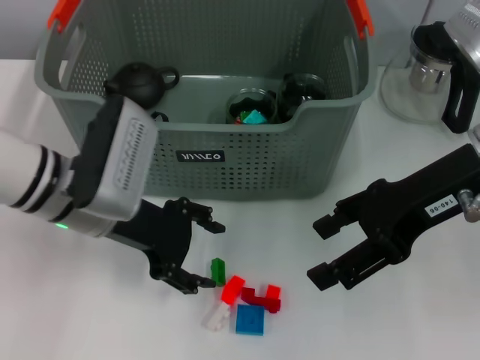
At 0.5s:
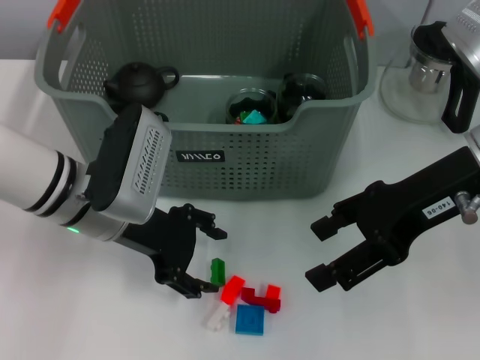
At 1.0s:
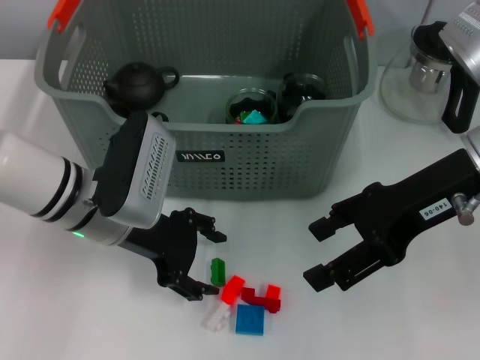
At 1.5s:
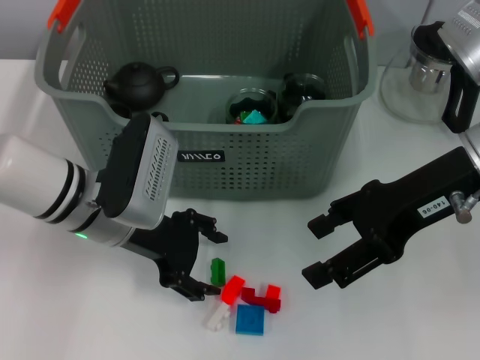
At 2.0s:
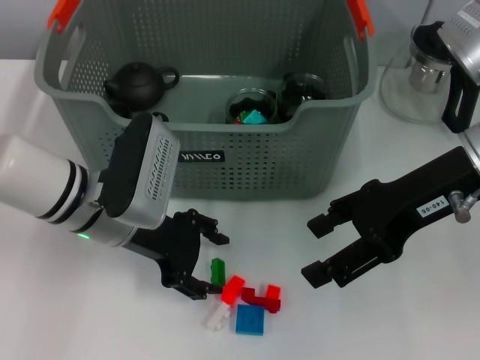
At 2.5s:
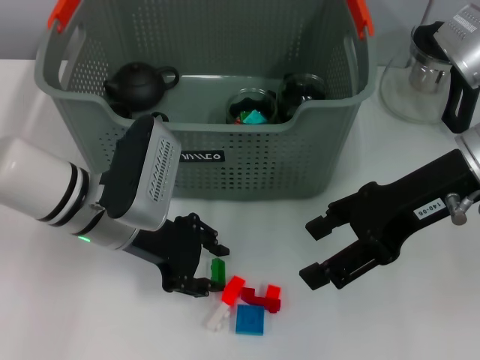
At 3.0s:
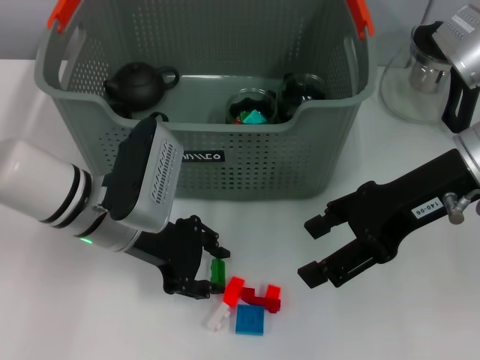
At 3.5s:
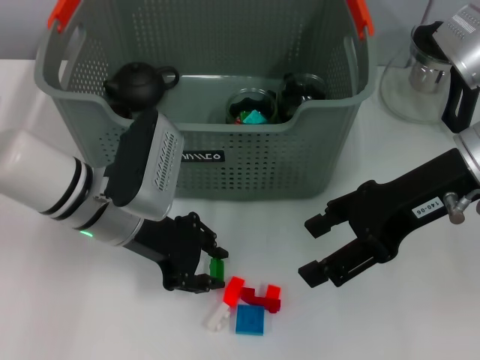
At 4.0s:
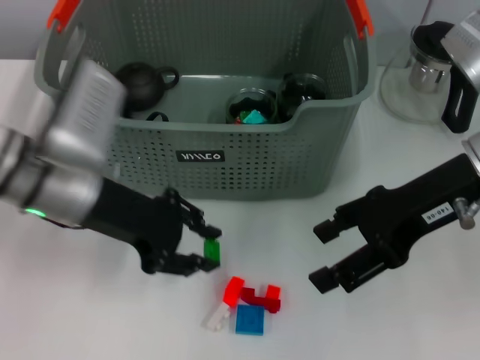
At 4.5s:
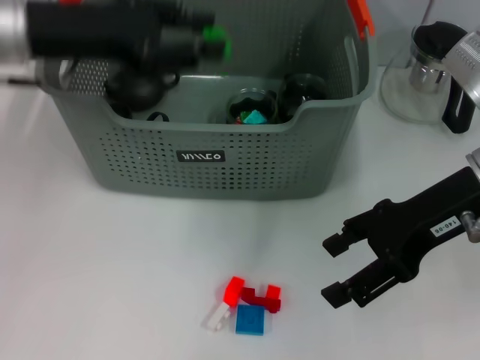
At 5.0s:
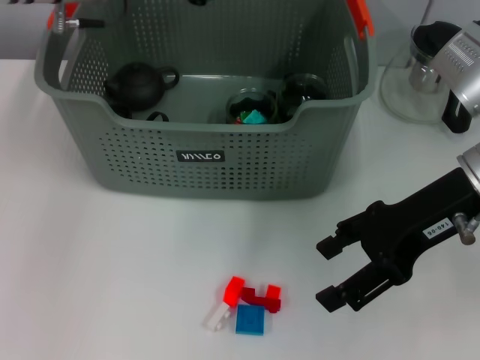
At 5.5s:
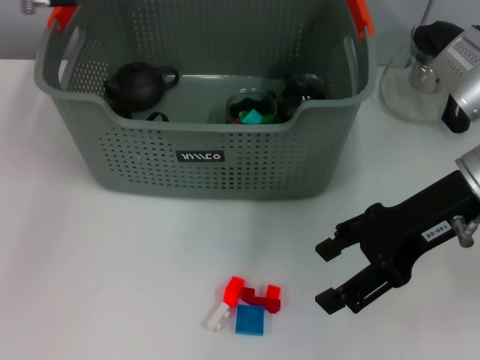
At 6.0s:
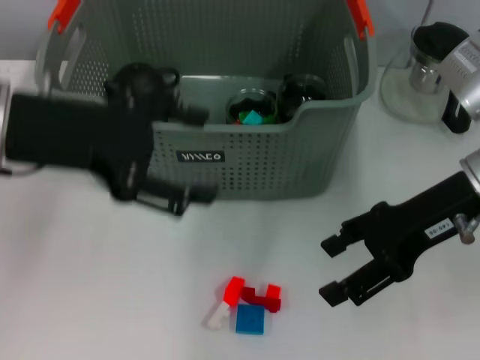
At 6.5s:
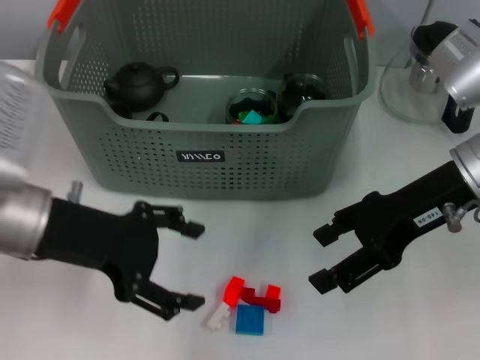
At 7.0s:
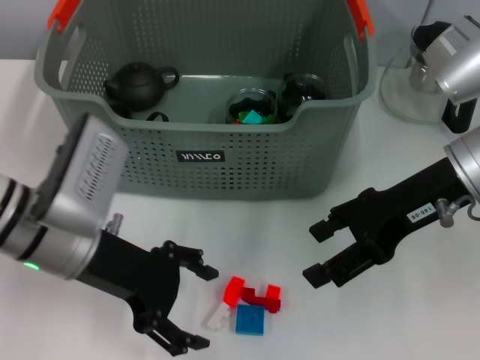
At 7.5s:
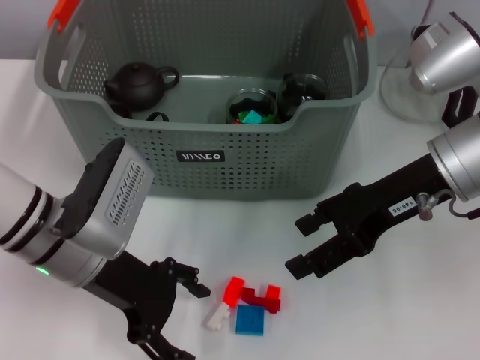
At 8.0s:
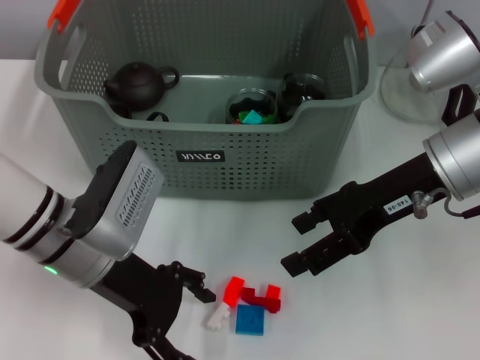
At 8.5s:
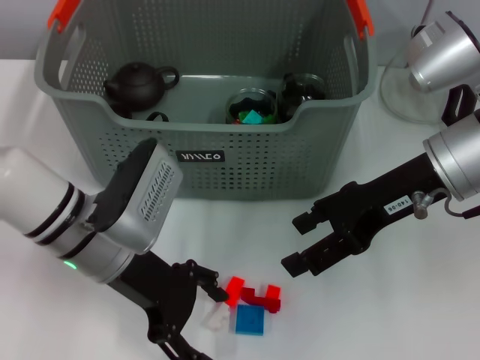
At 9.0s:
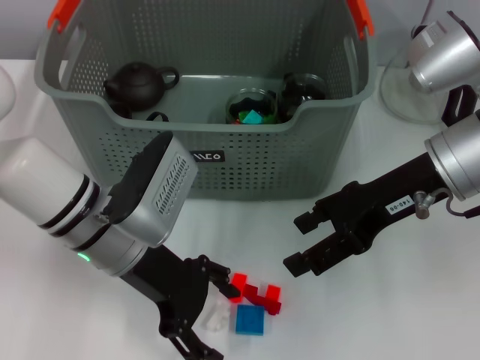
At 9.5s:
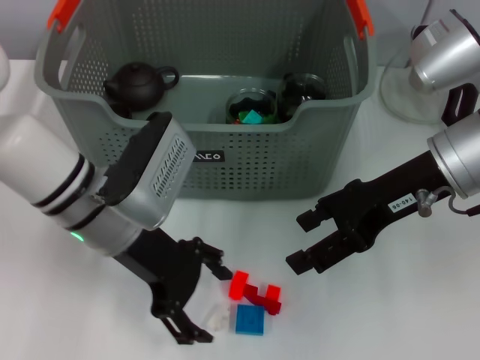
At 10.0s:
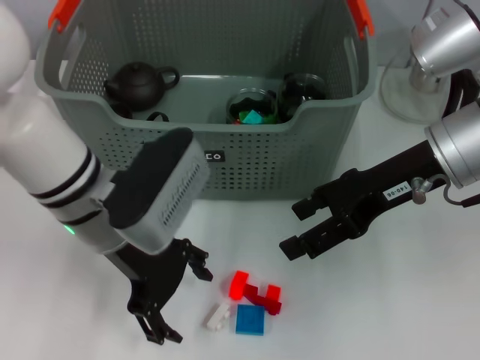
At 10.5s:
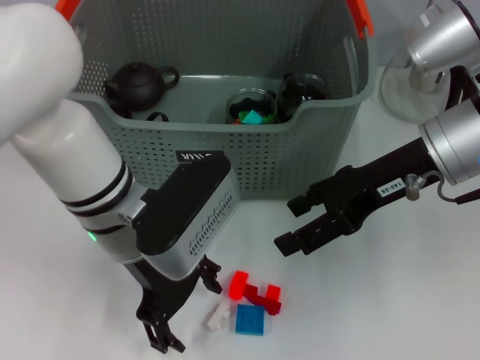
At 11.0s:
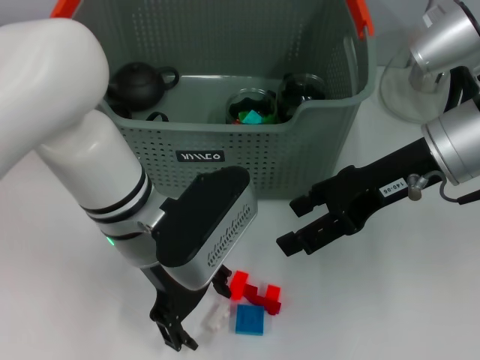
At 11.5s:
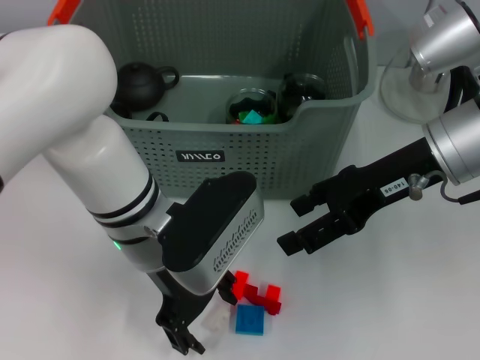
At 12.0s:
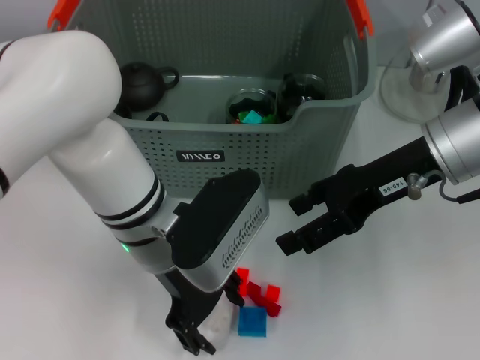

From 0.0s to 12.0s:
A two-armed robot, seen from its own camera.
Task of the whole recording: pick up the teacup on the table and place it into the storage bin, pick up the block on the table and place it into the storage bin.
Step, from 0.0s to 3.0s: Grasp the green block with left gripper.
Step, from 3.5s to 5.0s: Place the green block in the storage box with left gripper.
From 0.0s to 2.0s: There are only small adjustments of the grippers.
From 2.0s to 4.0s: The left gripper moves some 5 cm, and closes.
From 4.0s to 6.0s: The left gripper moves upward, about 10 cm, goes forward and returns, roughly 10 cm each way, and opens up.
From 6.0s to 8.0s: The left gripper heads downward, covering about 15 cm.
From 8.0s to 10.0s: The left gripper ends up approximately 5 cm from where it was.
From 10.0s to 12.0s: The left gripper changes place by approximately 5 cm.

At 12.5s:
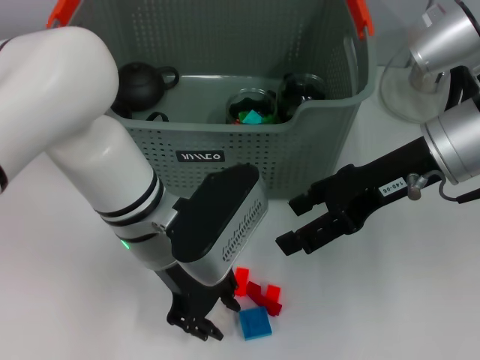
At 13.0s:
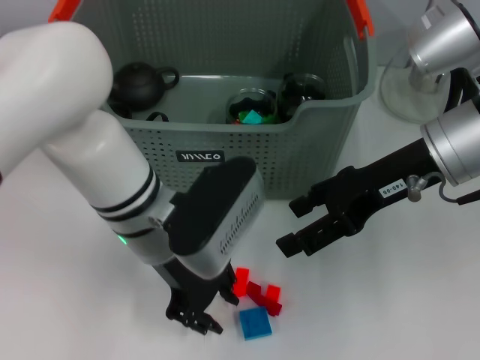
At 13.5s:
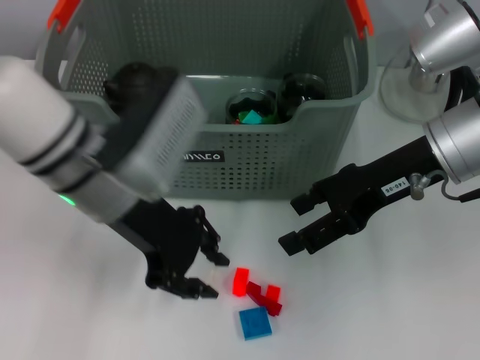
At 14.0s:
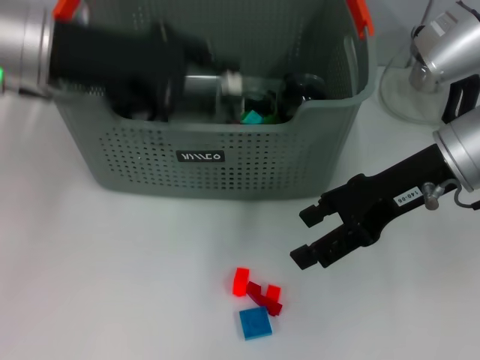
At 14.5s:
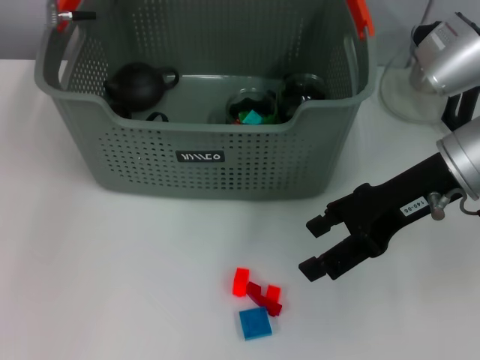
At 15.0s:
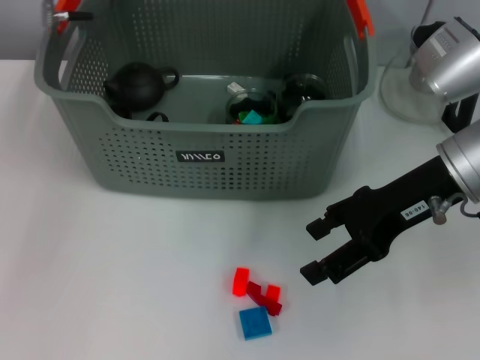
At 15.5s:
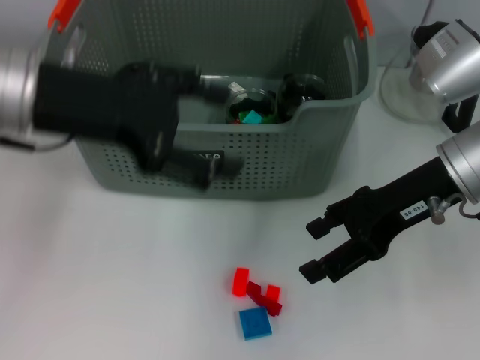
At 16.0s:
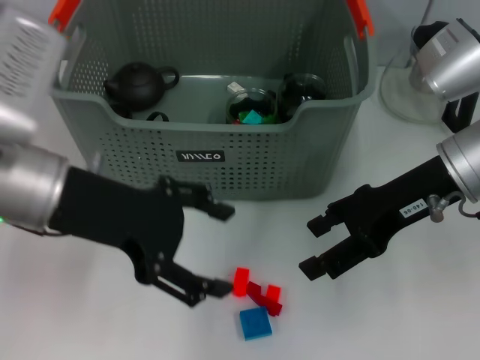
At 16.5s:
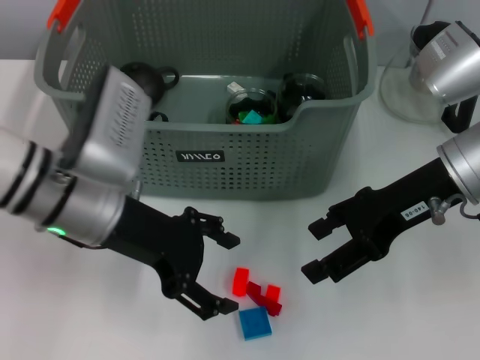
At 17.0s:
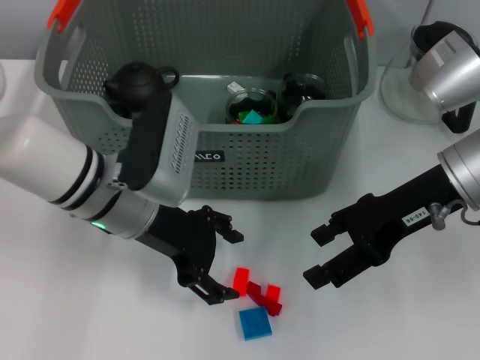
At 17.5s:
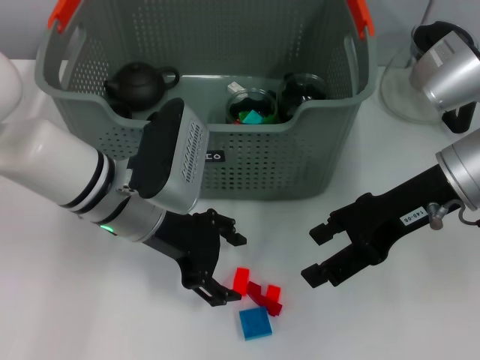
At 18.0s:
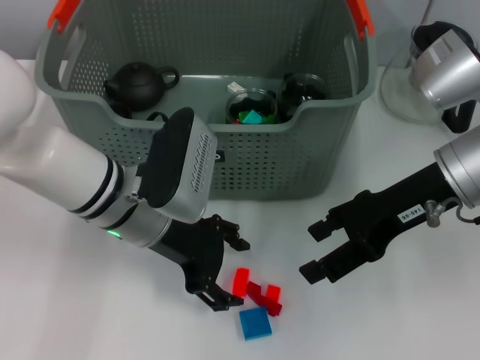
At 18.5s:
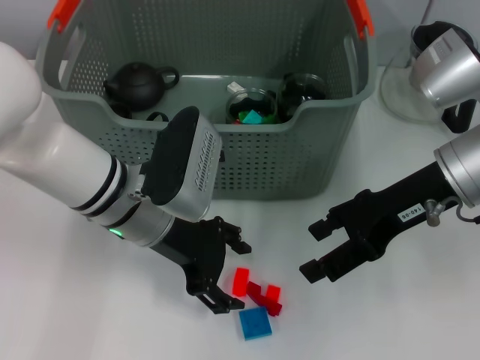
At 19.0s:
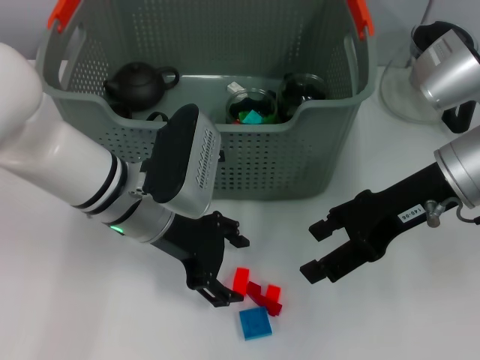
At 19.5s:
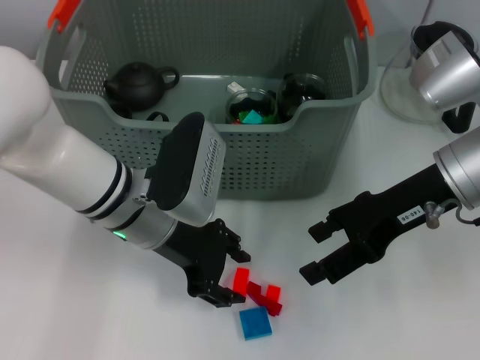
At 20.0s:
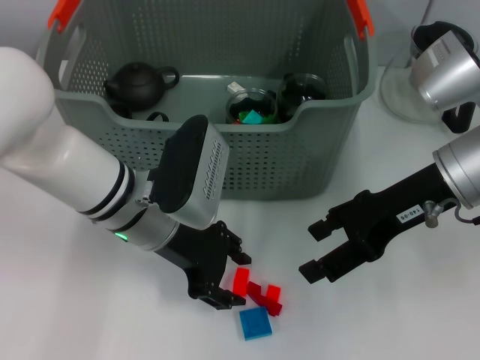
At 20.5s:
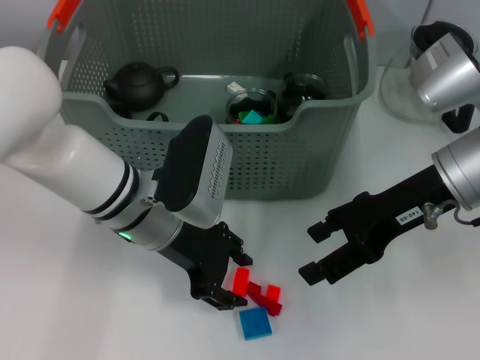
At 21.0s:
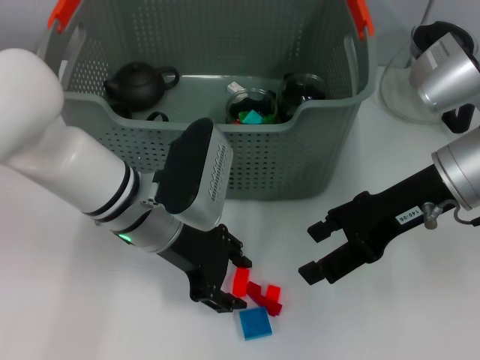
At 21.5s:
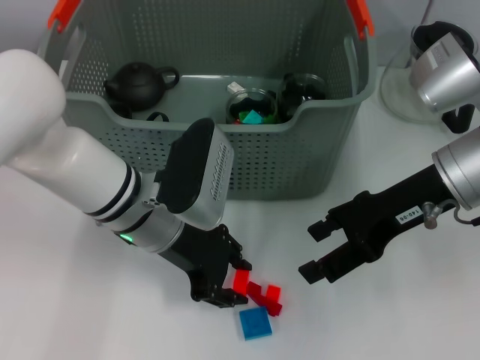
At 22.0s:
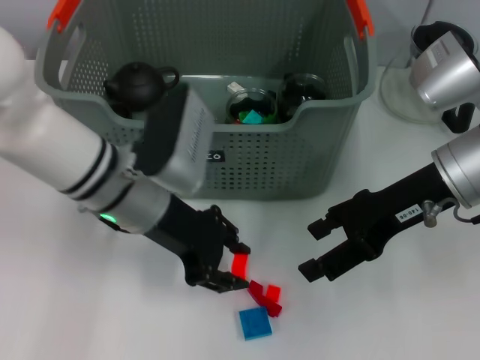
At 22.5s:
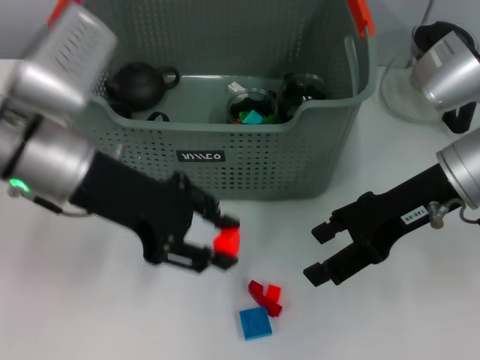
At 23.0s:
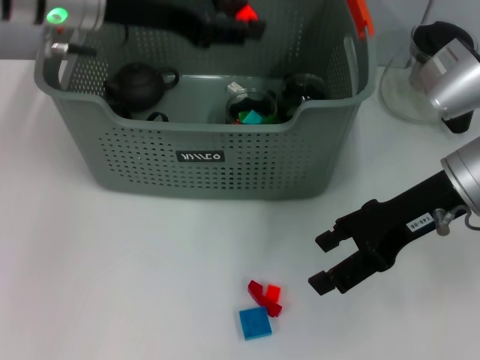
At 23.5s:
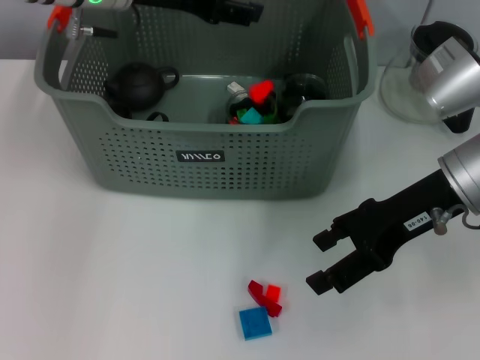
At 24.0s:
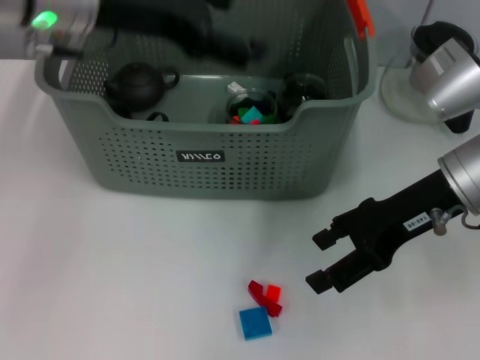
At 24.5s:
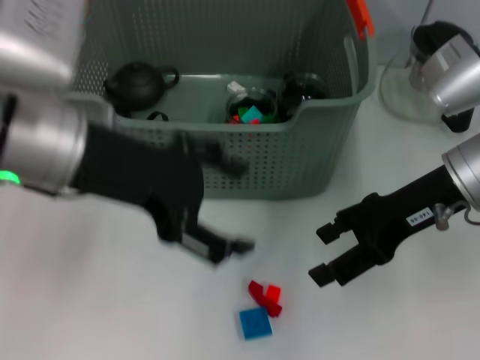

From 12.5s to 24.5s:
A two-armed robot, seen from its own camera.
Task of the whole recording: pick up the teacup on the table and place it into the storage bin, pick up the block on the table and place it into the storage bin.
Step, from 13.0s to 15.0s: Place the white block in the storage box with left gripper.
Step, from 15.5s to 21.5s: Grasp the orange block with left gripper.
Step, from 22.0s to 23.5s: Place the orange block in the storage box with left gripper.
From 12.5s to 14.5s: The left gripper goes about 20 cm forward, upward and to the left.
From 14.5s to 16.5s: The left gripper goes roughly 15 cm backward and downward, and opens.
From 16.5s to 18.5s: The left gripper shifts by about 5 cm.
From 18.5s to 20.5s: Neither gripper changes place.
From 20.5s to 22.5s: The left gripper shifts roughly 10 cm upward and to the left.
From 22.5s to 24.5s: The left gripper travels forward and back again, about 10 cm each way, and opens its fingers.

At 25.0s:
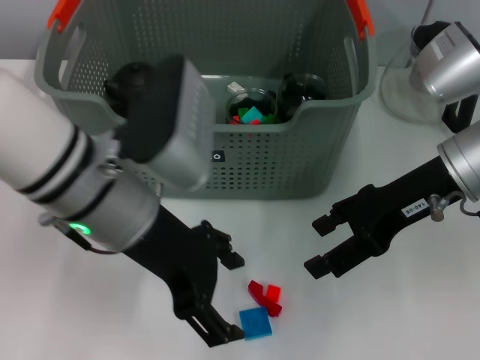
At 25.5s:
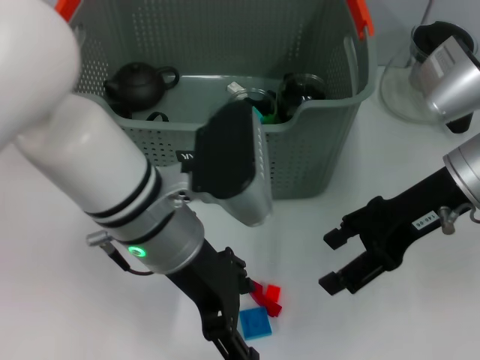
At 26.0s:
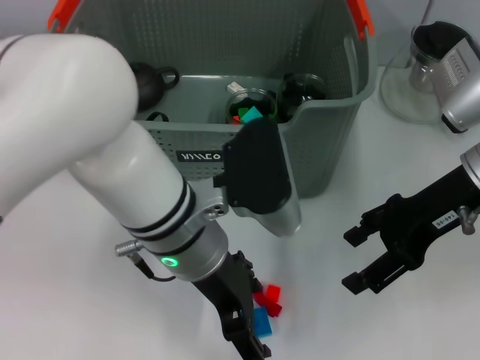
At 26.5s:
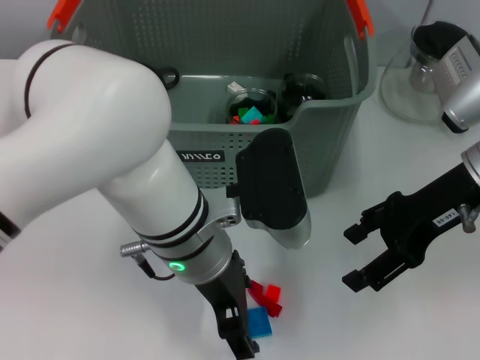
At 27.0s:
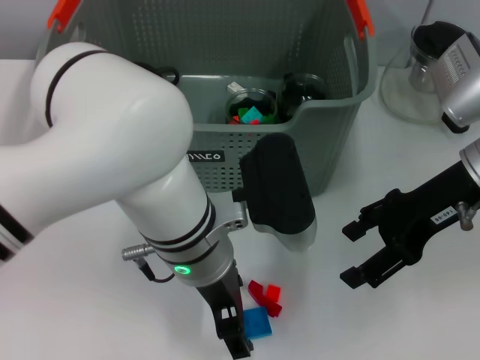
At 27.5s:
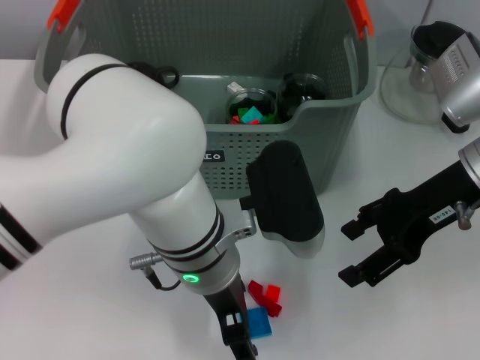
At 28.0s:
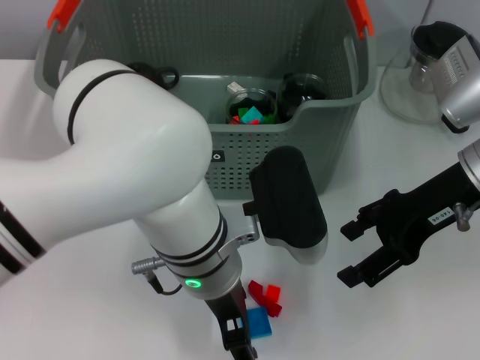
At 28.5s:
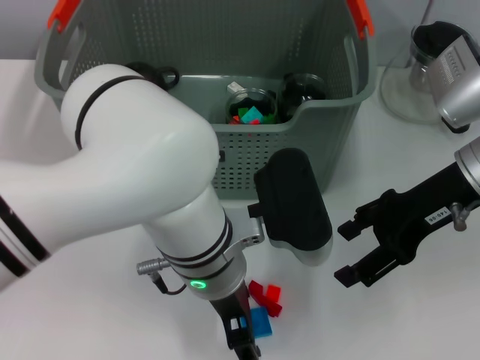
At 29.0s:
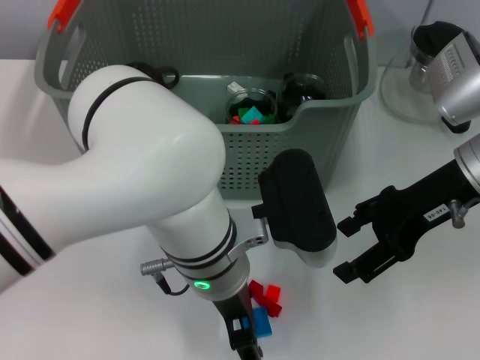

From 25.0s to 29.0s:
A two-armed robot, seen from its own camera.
Task of the whole recording: pick up the teacup on the table and place it into the storage bin, pick up the block on the table and place it into the storage bin.
From 25.0s to 27.0s: The left gripper goes roughly 10 cm to the right and downward.
